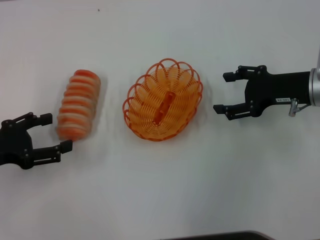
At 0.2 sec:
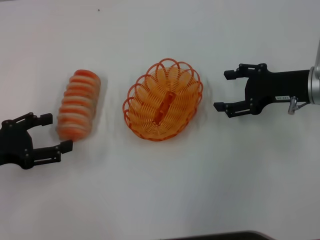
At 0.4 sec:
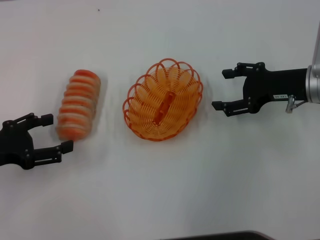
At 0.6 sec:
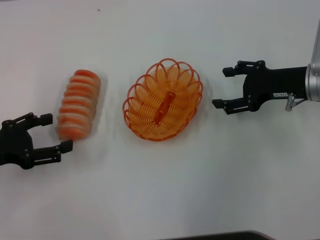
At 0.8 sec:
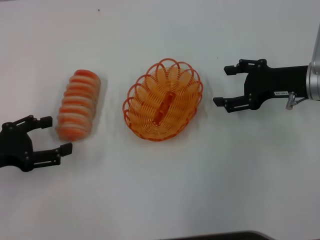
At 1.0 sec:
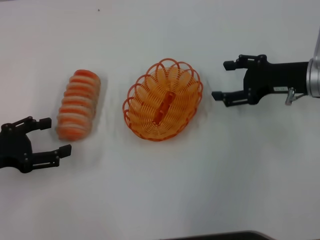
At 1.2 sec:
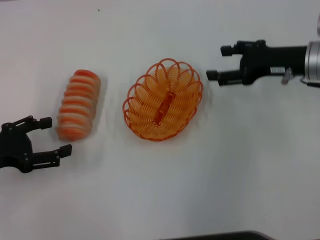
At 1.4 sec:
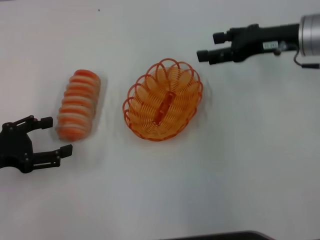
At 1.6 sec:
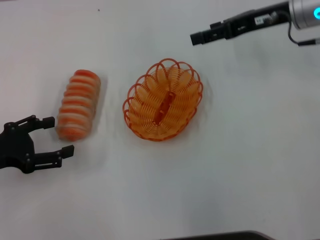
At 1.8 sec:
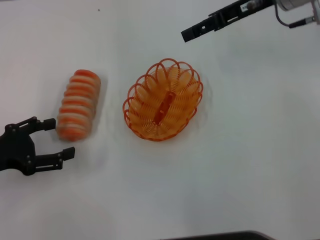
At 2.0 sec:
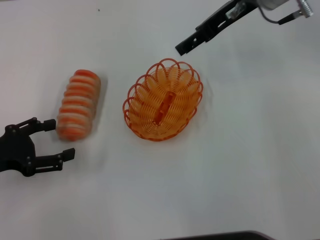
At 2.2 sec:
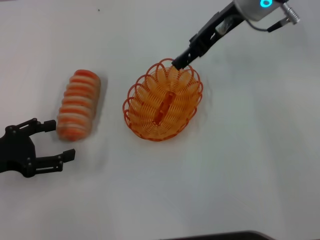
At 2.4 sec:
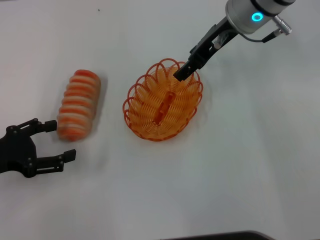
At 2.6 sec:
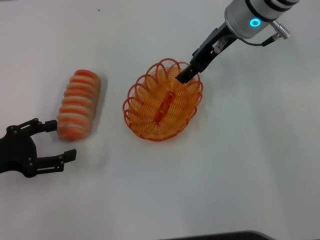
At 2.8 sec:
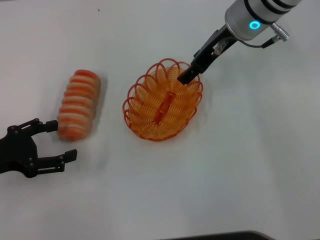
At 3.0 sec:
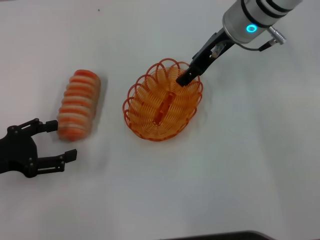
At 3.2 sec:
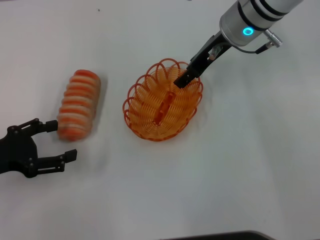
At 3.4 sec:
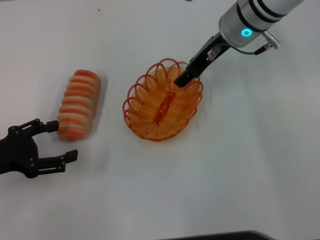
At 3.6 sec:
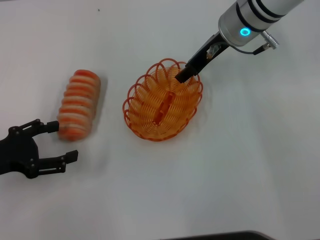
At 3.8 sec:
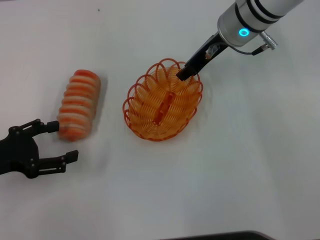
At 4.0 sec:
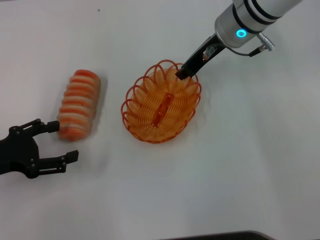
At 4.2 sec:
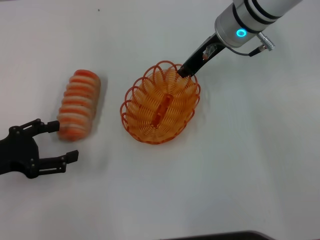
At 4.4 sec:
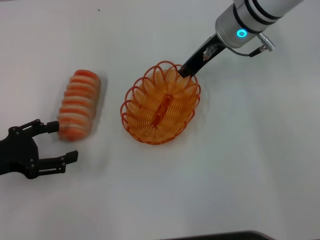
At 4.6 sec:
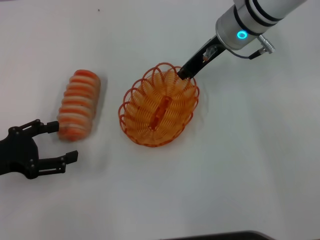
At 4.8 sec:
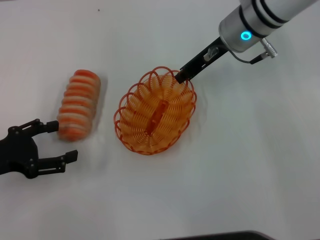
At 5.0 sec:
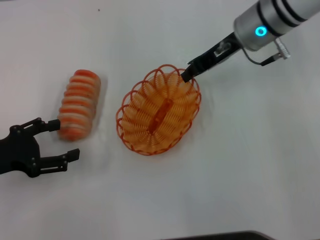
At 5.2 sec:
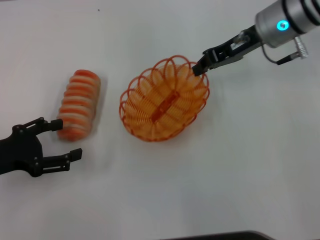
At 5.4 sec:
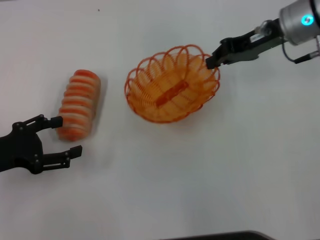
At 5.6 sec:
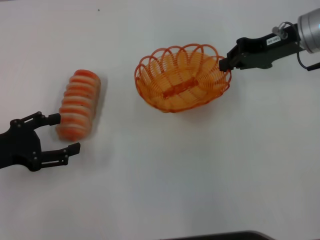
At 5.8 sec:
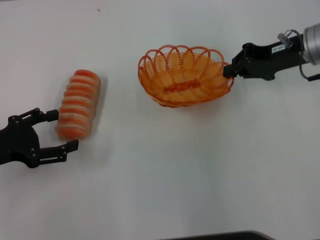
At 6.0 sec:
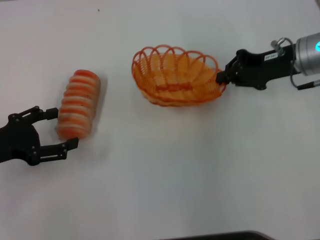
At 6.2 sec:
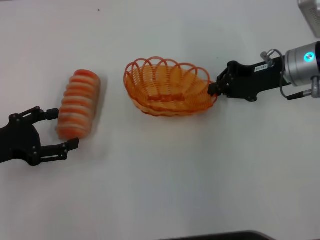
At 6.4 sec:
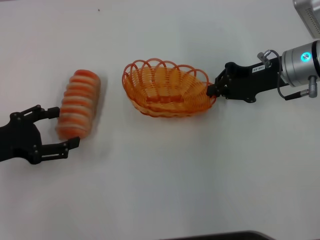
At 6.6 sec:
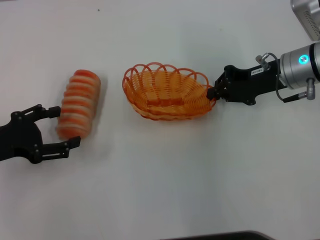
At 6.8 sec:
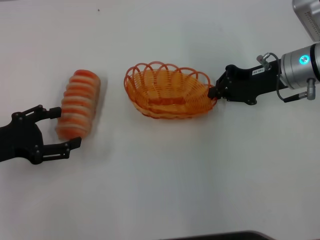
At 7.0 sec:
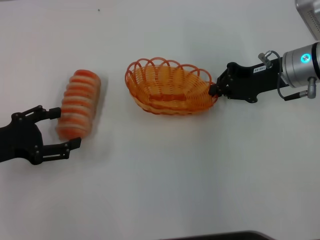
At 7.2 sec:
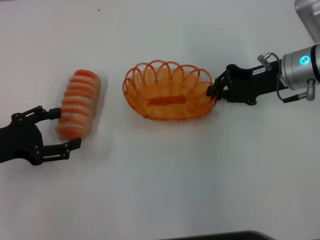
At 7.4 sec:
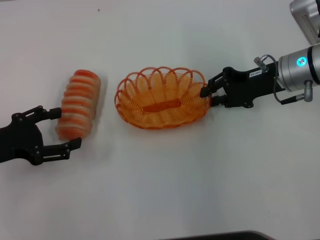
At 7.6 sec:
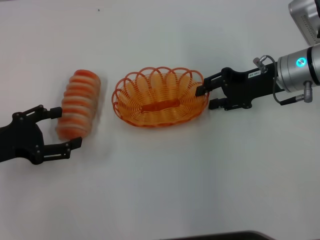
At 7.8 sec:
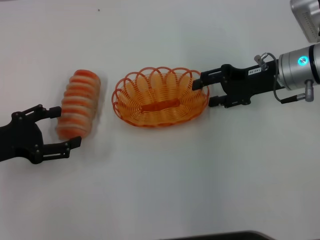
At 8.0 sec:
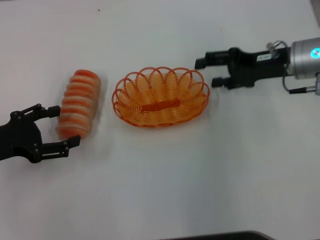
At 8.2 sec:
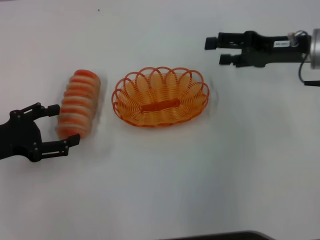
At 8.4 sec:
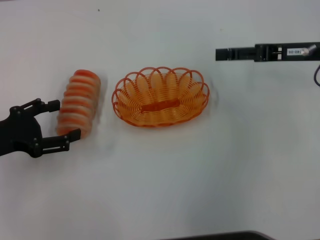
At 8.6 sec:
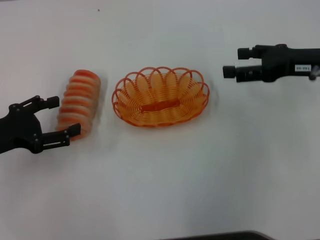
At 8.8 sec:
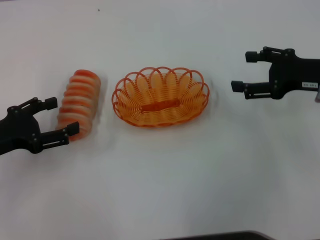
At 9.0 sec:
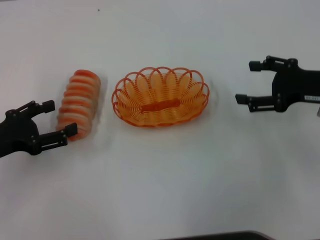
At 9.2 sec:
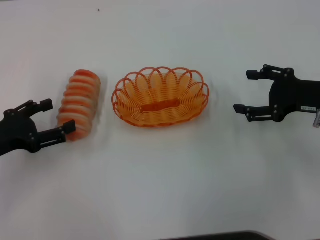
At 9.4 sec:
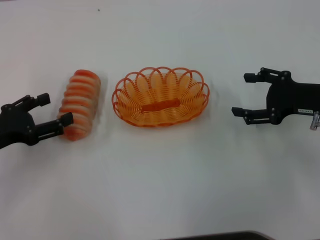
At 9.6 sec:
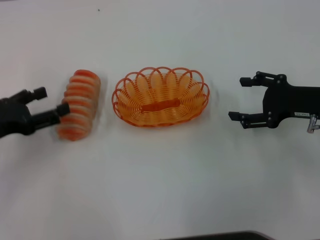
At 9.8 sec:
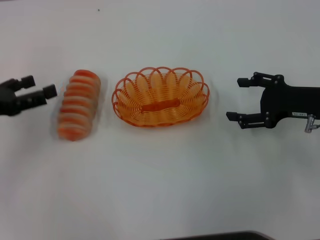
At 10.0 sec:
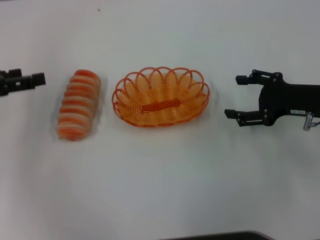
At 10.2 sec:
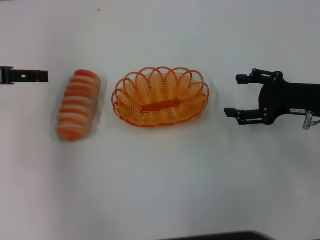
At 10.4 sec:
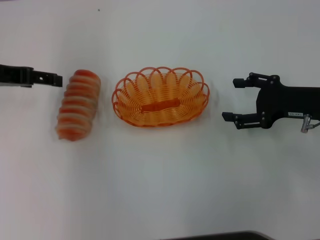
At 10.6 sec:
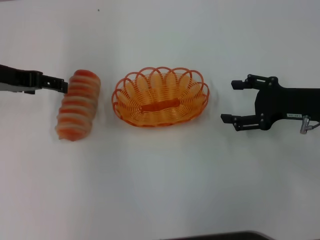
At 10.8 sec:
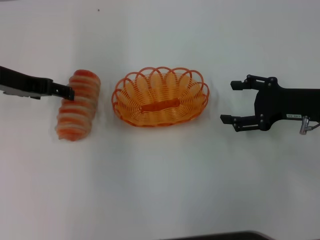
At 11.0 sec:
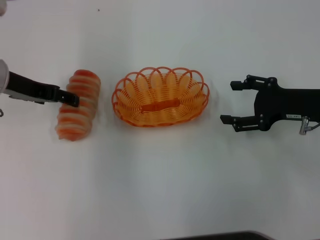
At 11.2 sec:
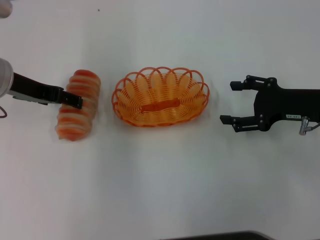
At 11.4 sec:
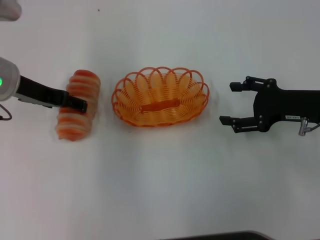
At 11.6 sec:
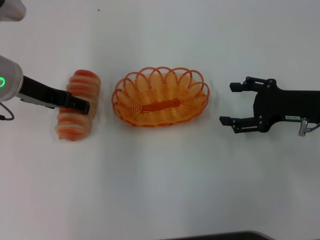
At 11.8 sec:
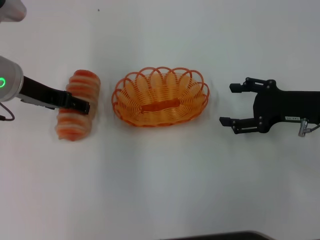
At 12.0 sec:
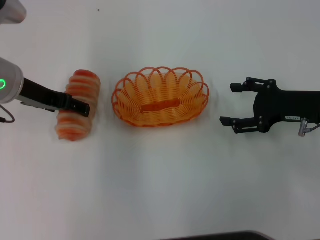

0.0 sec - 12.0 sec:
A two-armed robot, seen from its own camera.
Step, 0.0 sec - 5.0 sec: Pick up the basket with the right gripper.
Step, 5.2 sec - 8.0 sec: Place the basket in the center of view with the right gripper.
0.0 sec - 1.6 sec: The right gripper moves upward and forward, roughly 10 cm.
1.6 sec - 3.0 sec: The right gripper travels to the left by approximately 10 cm.
3.0 sec - 4.4 sec: The right gripper closes.
4.4 sec - 6.0 sec: The right gripper travels to the right and backward by some 15 cm.
6.0 sec - 7.6 sec: The grippers move only a little.
7.6 sec - 9.0 sec: The right gripper moves to the right and backward, some 10 cm, and opens.
9.0 sec - 10.4 sec: The left gripper goes about 15 cm upward and forward.
10.4 sec - 12.0 sec: The left gripper shifts about 5 cm to the right.

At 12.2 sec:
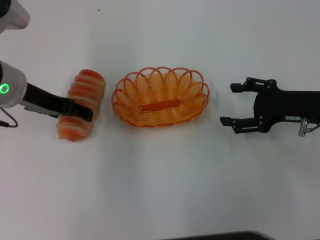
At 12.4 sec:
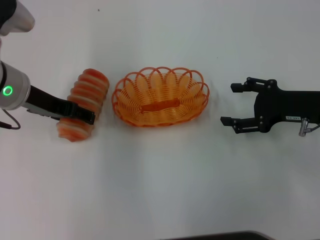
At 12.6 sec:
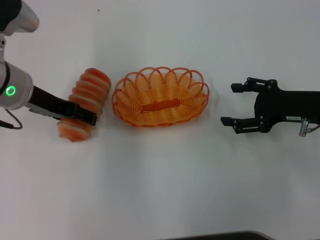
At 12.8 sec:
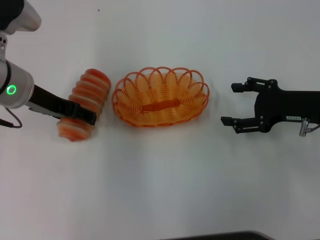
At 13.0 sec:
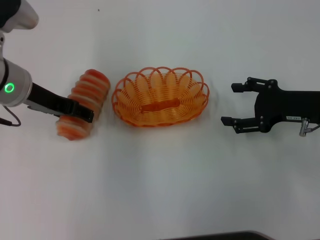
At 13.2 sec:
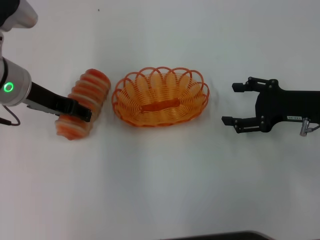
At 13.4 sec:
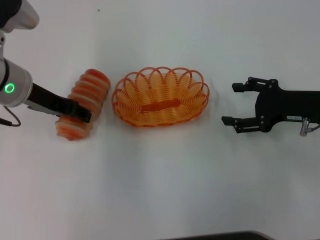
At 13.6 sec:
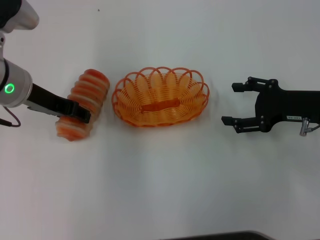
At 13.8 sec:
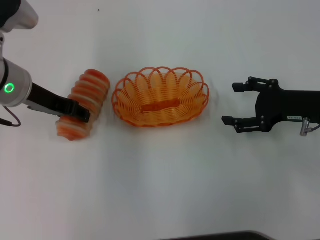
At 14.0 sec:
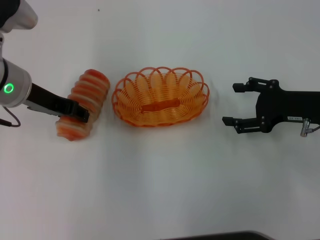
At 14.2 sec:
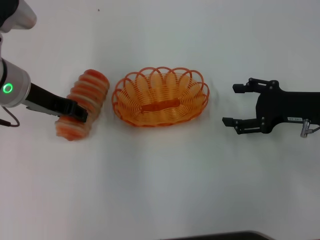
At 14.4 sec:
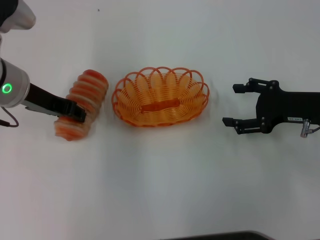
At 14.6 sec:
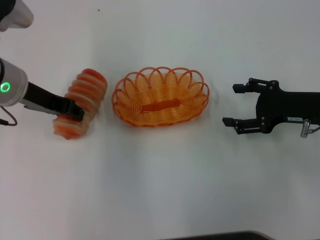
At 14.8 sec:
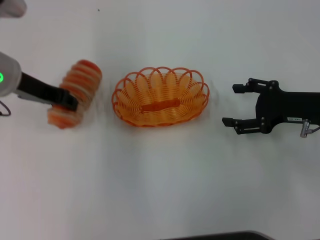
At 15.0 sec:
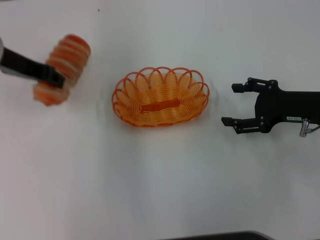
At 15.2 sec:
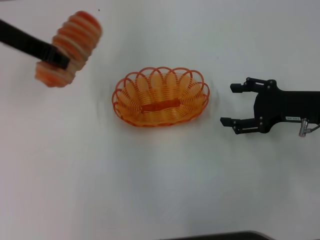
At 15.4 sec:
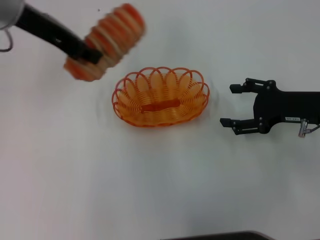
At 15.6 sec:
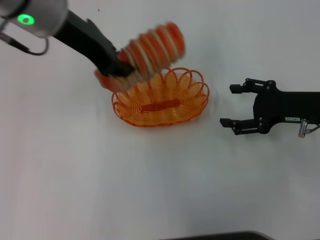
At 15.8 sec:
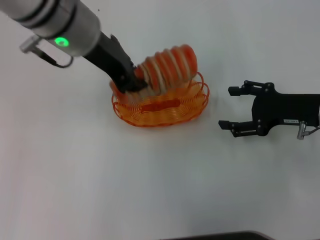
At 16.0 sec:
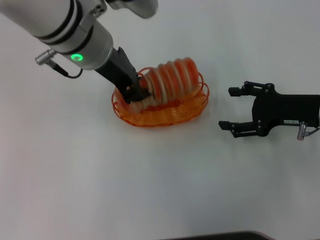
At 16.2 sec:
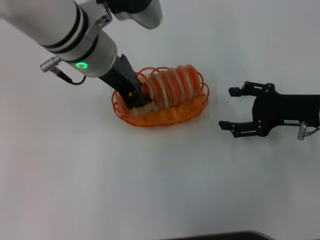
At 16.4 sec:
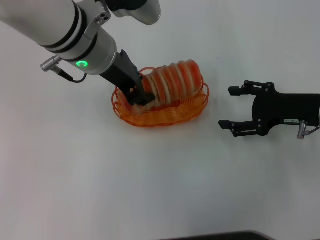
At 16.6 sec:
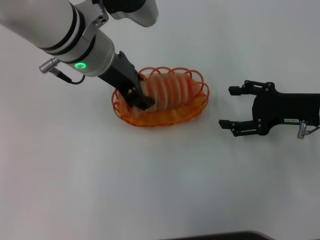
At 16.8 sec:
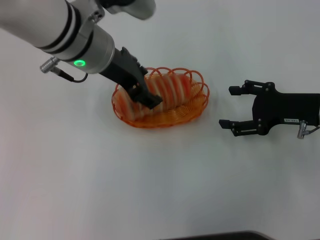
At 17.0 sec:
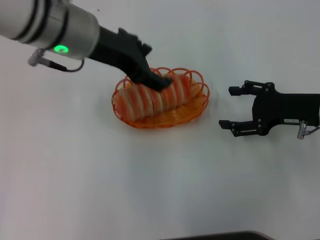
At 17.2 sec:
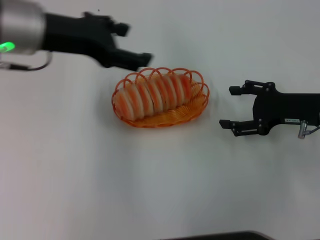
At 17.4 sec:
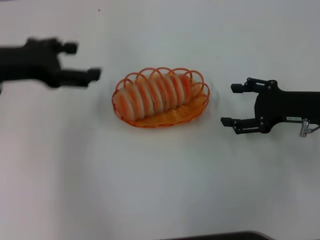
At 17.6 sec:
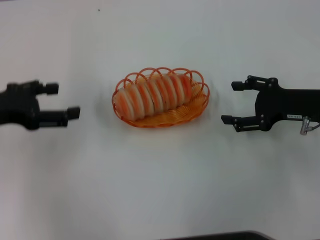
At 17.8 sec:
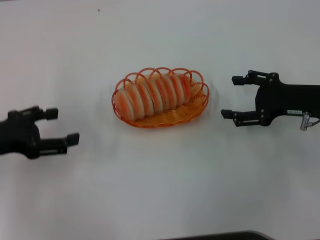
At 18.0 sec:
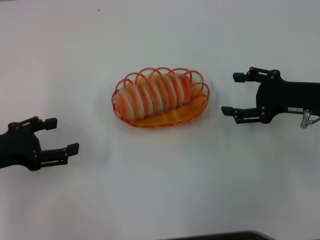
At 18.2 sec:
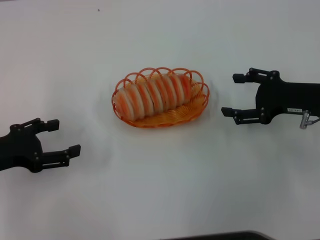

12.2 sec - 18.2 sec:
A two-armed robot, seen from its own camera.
Step, 12.2 sec - 14.8 sec: Pick up the long bread with the left gripper.
Step, 15.0 sec - 17.0 sec: Place the long bread into the basket with the left gripper.
12.2 sec - 13.8 sec: The left gripper closes up.
13.8 sec - 15.2 sec: The left gripper goes roughly 10 cm upward, and closes its fingers.
15.2 sec - 16.6 sec: The left gripper goes roughly 15 cm to the right.
16.6 sec - 18.2 sec: The left gripper heads to the left, backward and downward, covering about 25 cm, and opens.
